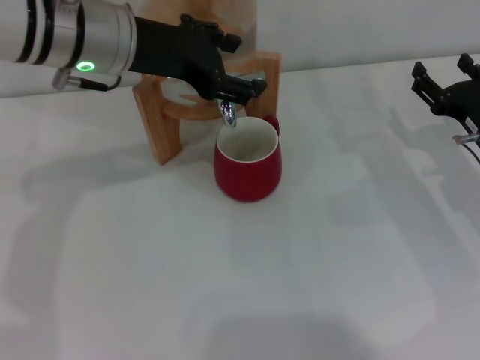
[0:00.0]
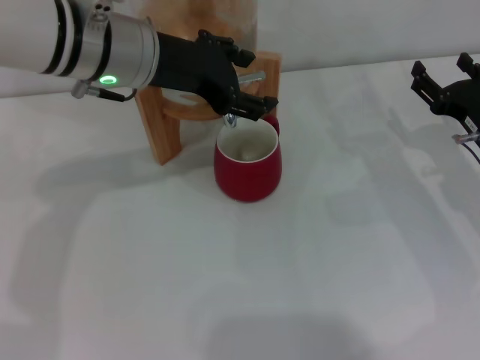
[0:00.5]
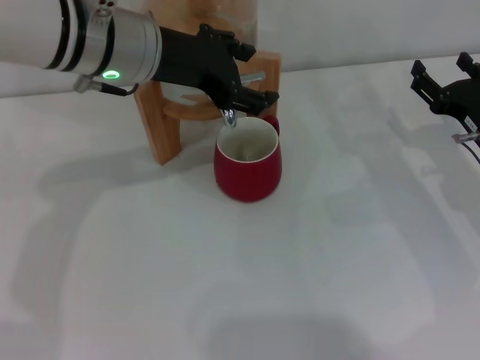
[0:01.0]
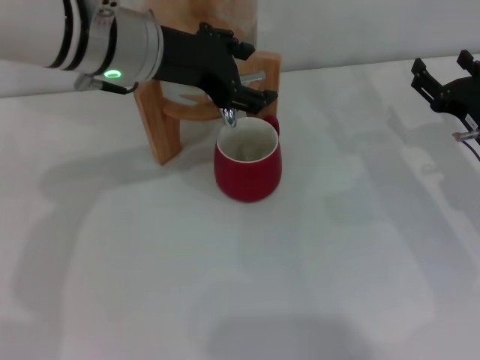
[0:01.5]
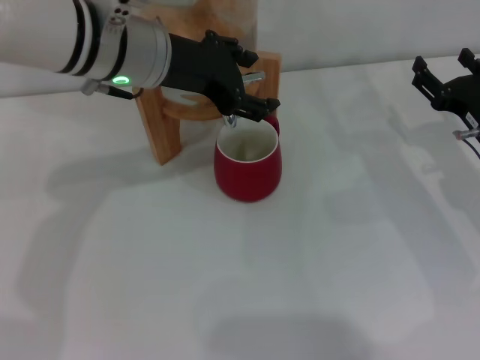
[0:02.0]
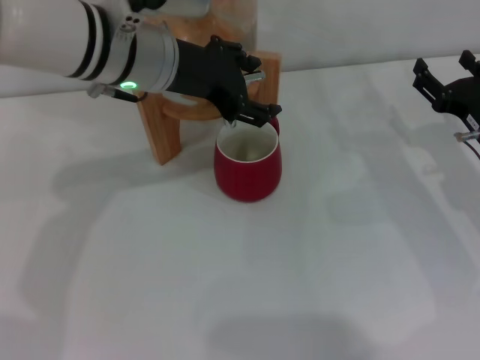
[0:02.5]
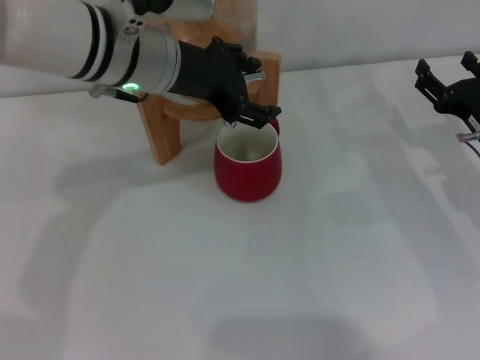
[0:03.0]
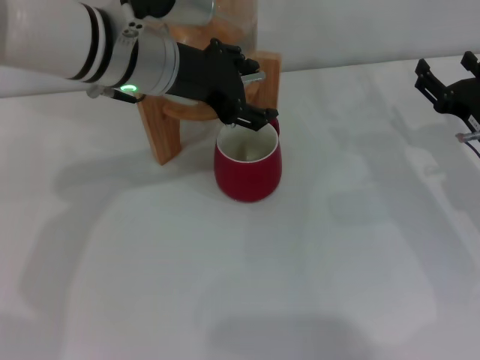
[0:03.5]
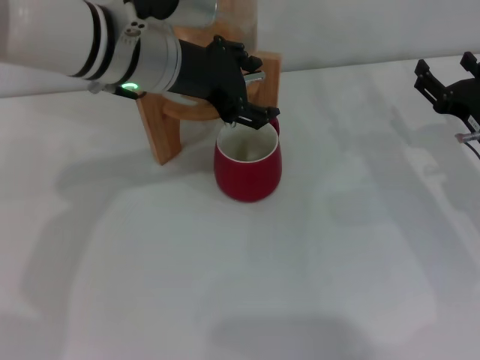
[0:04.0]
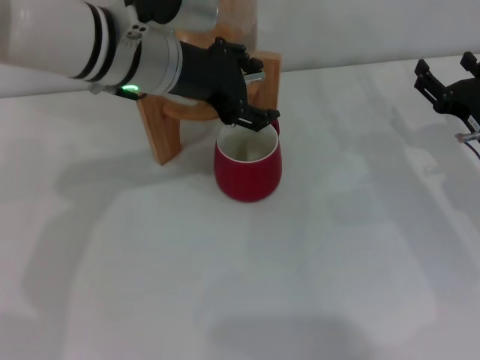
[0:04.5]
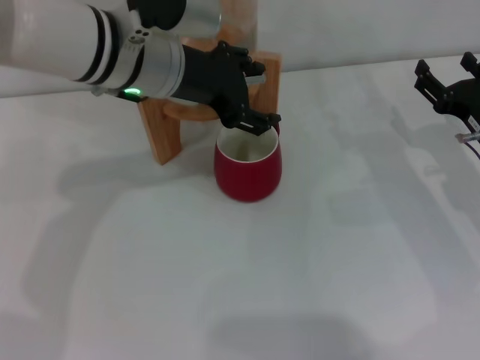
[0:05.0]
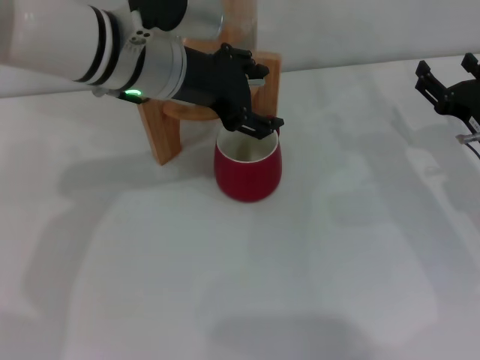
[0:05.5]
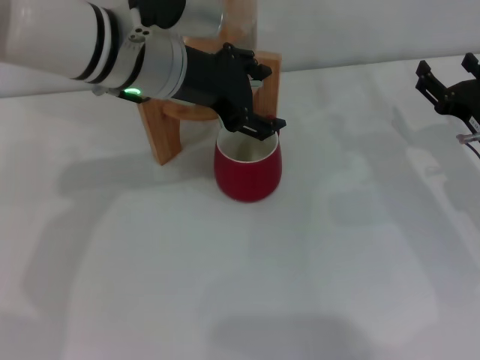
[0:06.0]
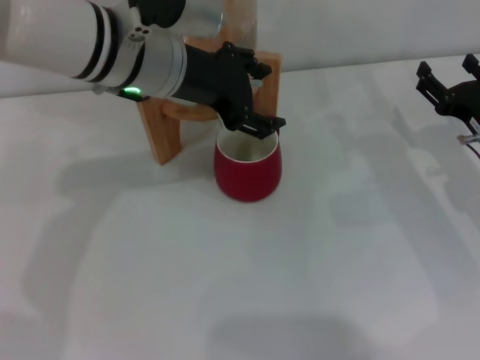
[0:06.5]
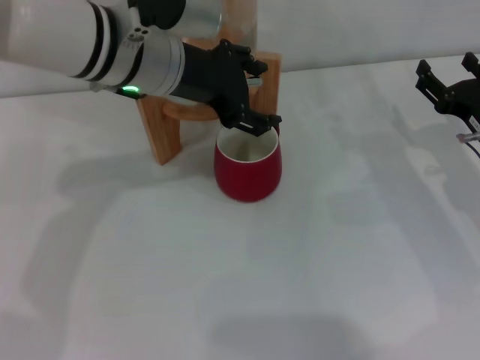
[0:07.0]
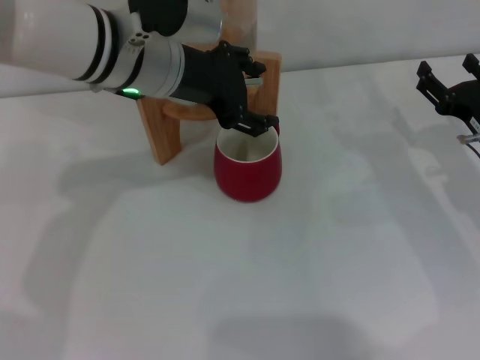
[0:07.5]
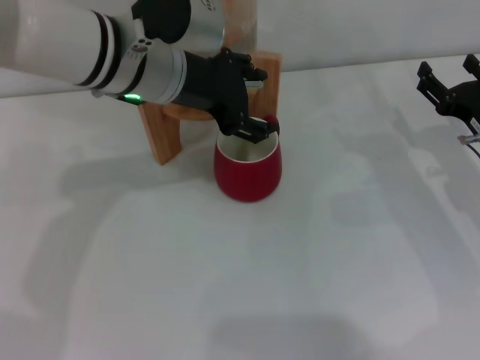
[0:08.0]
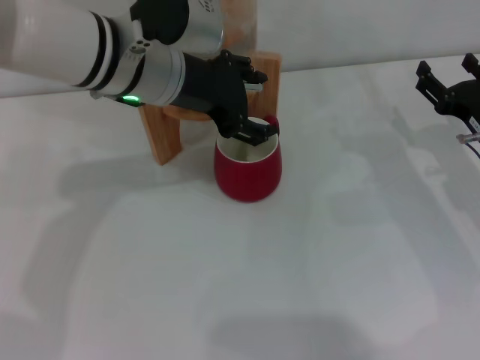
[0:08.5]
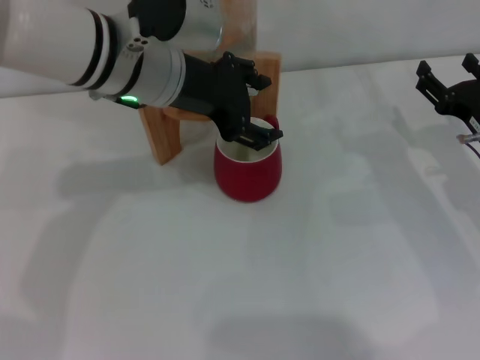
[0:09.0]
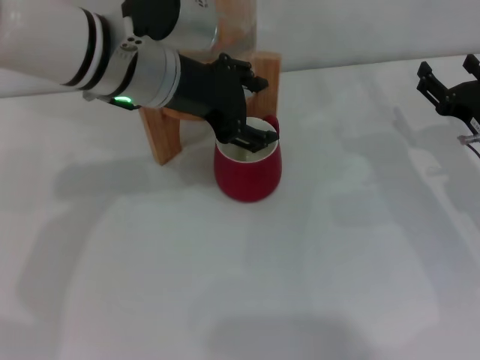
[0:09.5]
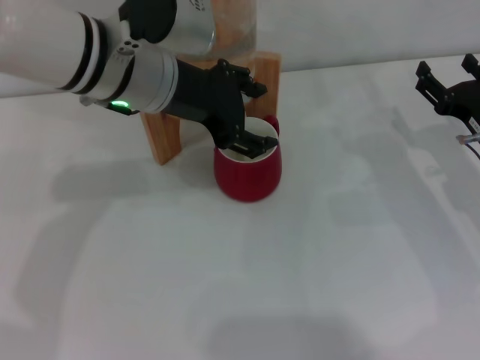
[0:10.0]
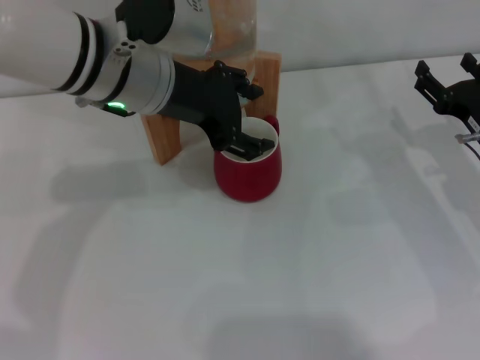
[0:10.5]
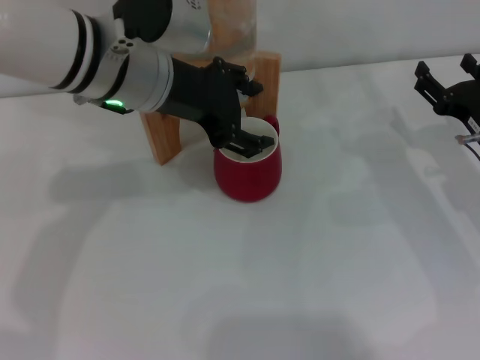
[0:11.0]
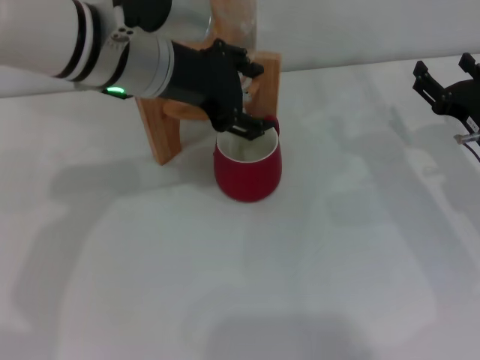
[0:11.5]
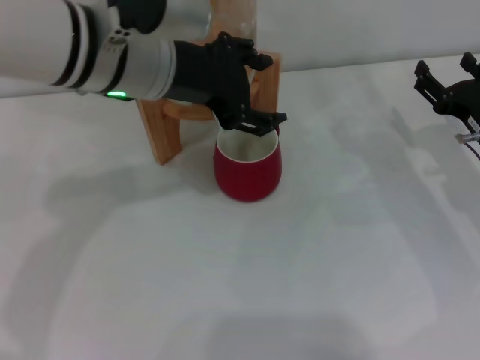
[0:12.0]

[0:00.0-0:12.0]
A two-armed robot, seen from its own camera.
Task of the whole recording: the right gripper pick up the red cup and place it horizontally under the faucet, the left gripper turn on the faucet to fill the cup, and then turn off the faucet.
Step, 0:00.0 to 0:11.5: Open the dispenser valve and fill the cup with water with the left gripper.
0:00.0 to 0:04.0: There are only small adjustments of the grippers.
0:04.0 to 0:06.0: Both grippers stay put.
0:06.0 to 0:08.0: The two grippers keep their place.
0:08.0 to 0:12.0: The grippers move only a little.

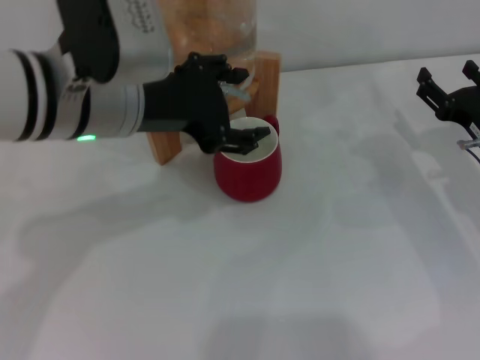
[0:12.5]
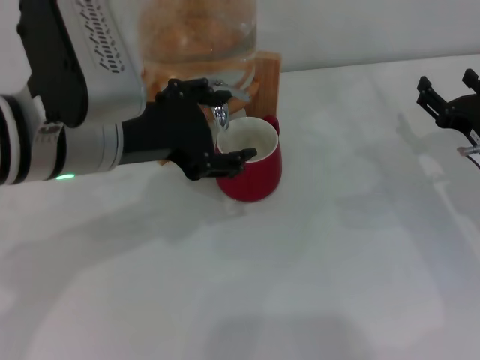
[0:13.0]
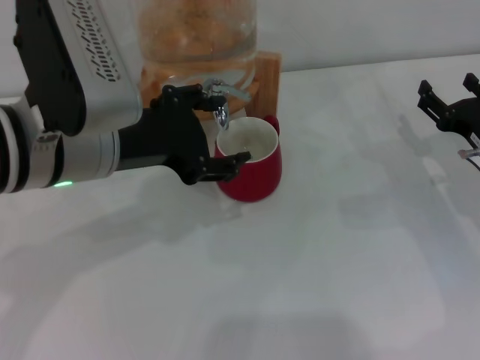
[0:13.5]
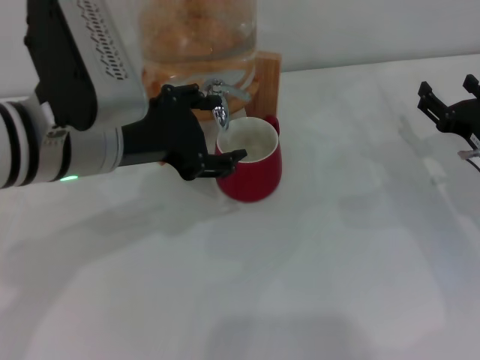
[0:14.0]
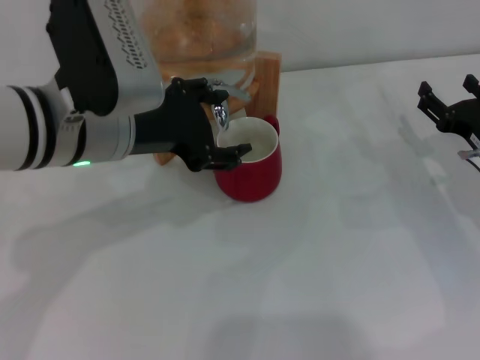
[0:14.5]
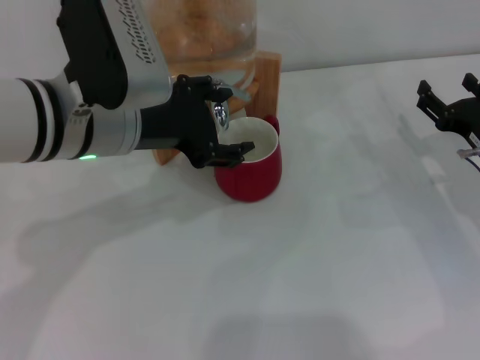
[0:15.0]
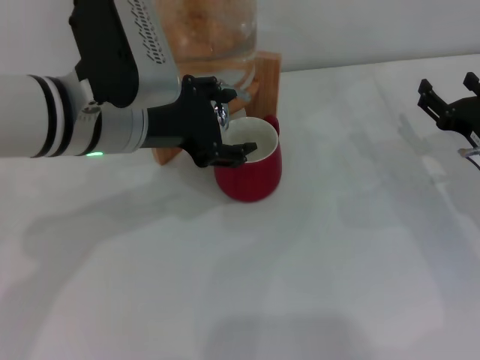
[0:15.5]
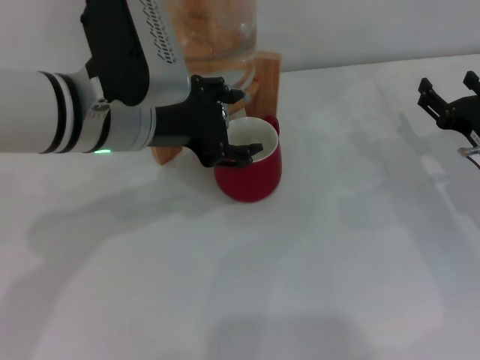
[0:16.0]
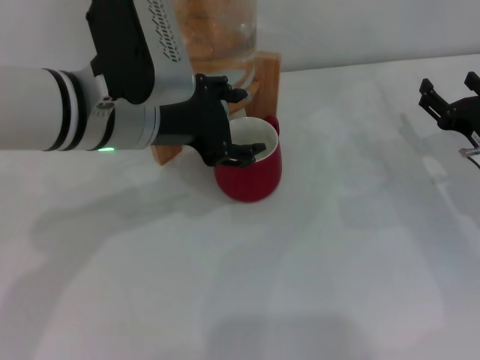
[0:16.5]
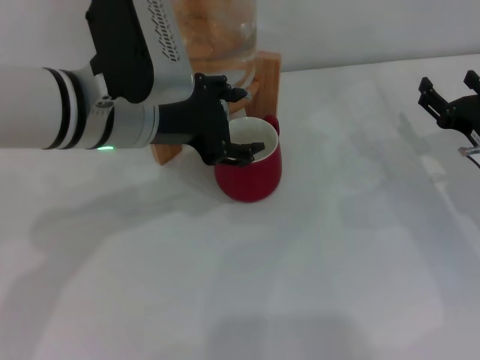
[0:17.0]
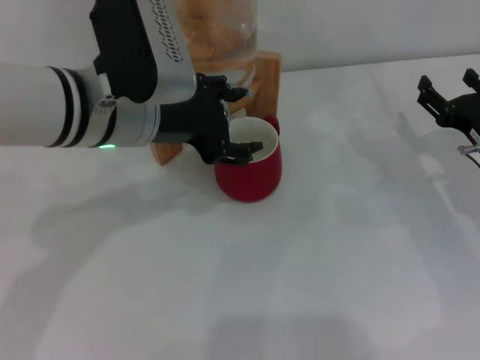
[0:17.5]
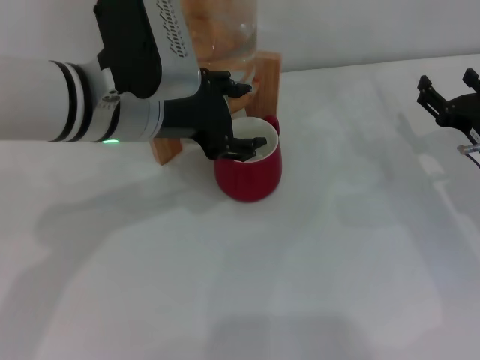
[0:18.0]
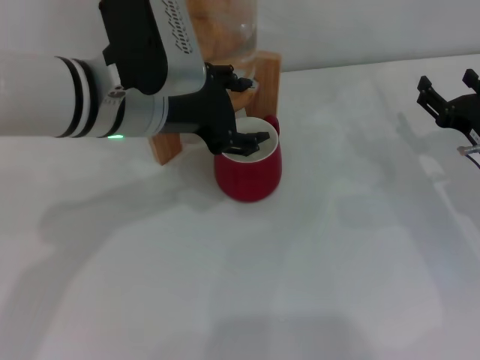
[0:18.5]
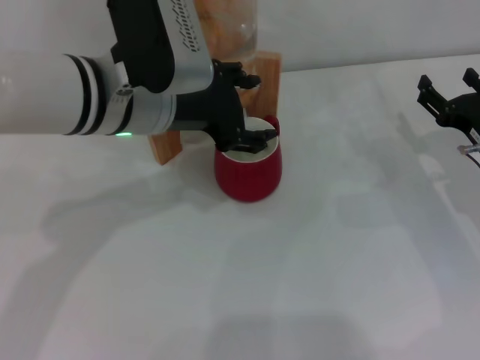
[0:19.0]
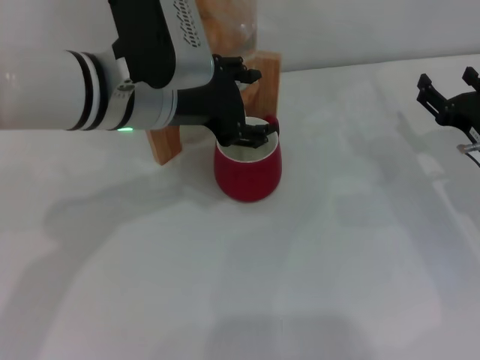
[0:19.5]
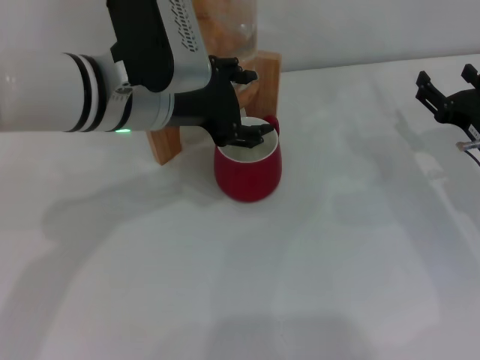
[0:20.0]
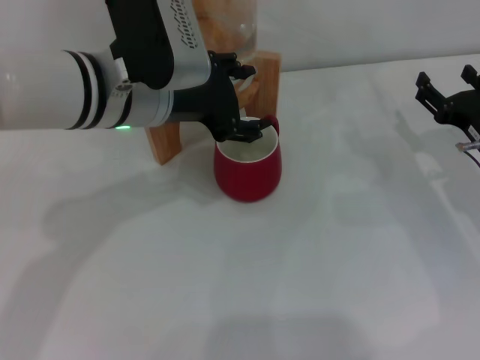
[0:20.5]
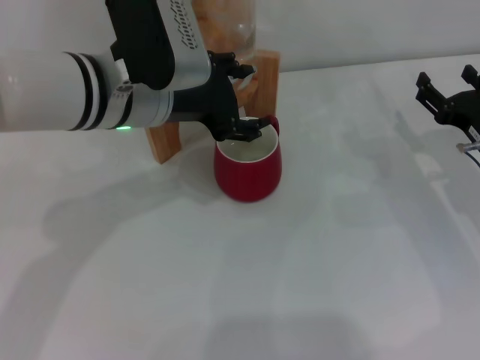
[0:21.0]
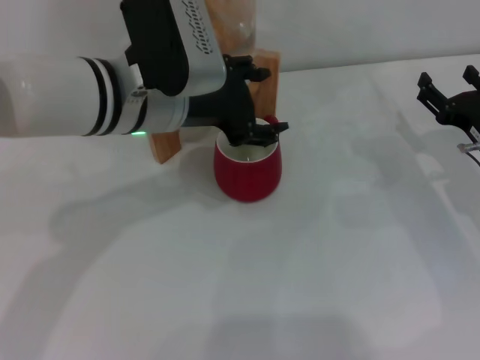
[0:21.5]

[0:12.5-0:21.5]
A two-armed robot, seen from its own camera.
Task of the whole recording: the right gripper pick up the red cup and place it horizontally under the faucet, the left gripper turn on the faucet to fill the cup, and then turn off the faucet.
Step, 0:12.5 to 0:21.5: Close the dispenser valve with the left gripper.
0:12.5 to 0:19.5: There are only small adjustments of the grippers.
0:19.5 to 0:21.5: Both grippers stay put.

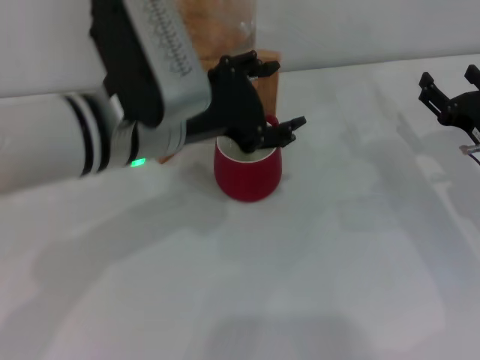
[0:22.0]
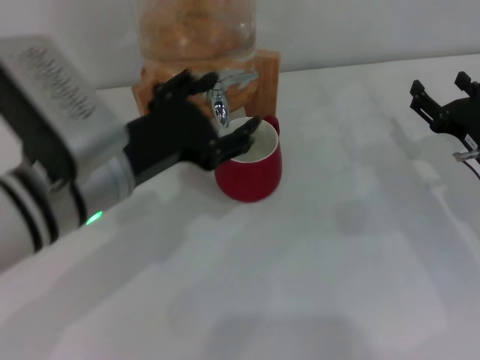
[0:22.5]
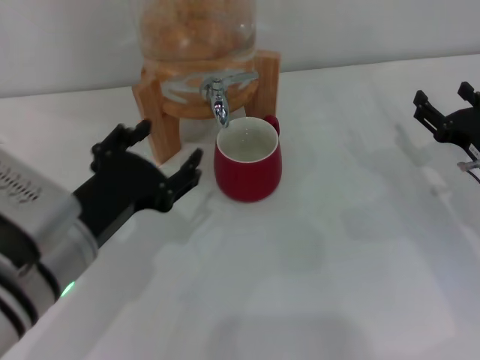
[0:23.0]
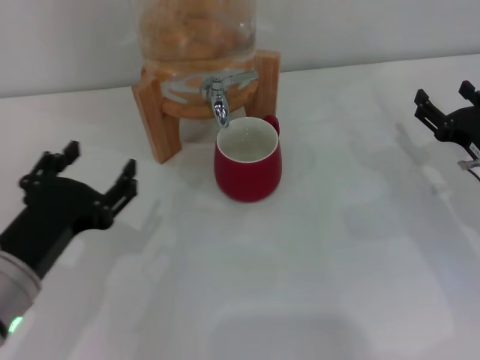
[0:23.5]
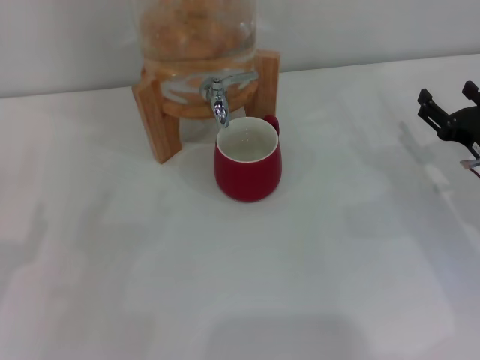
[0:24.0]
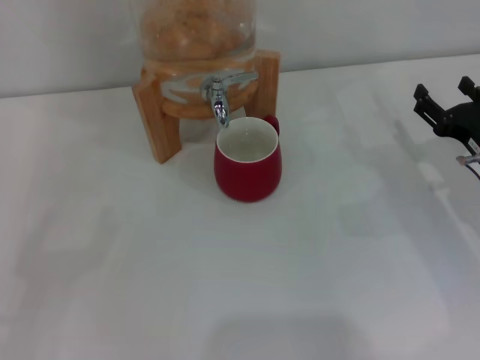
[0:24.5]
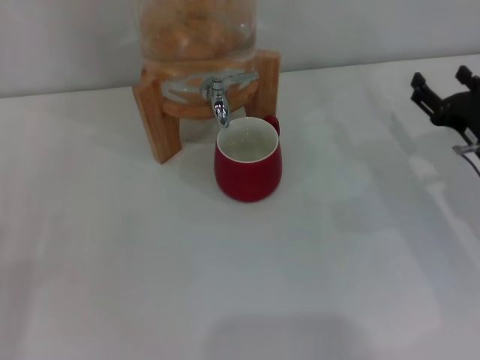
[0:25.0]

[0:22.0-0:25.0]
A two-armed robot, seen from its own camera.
Task of the whole recording: the right gripper pick up the red cup and place it horizontally under the faucet, the left gripper turn on the faucet to fill the cup, and then turn off the faucet.
0:22.0 to 0:23.5: The left gripper shifts about 20 cm to the left, backward and downward.
0:23.5 to 0:25.0: The left gripper moves to the left, approximately 15 cm.
